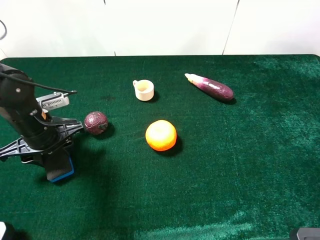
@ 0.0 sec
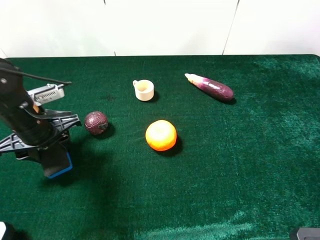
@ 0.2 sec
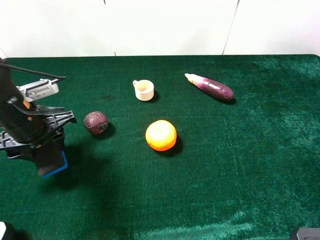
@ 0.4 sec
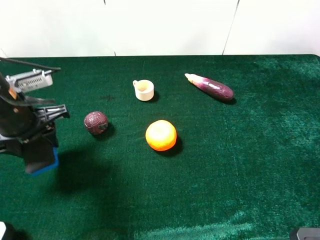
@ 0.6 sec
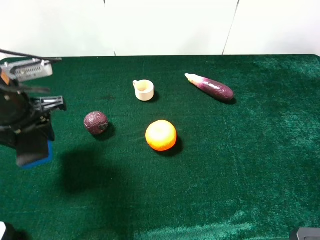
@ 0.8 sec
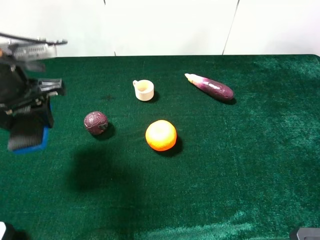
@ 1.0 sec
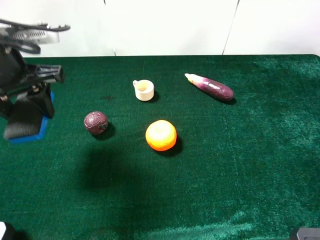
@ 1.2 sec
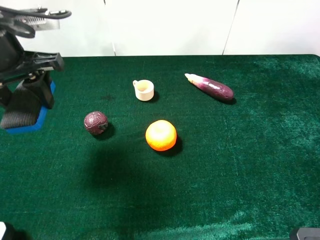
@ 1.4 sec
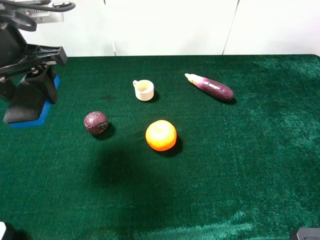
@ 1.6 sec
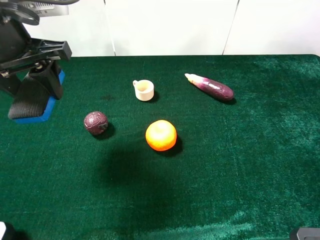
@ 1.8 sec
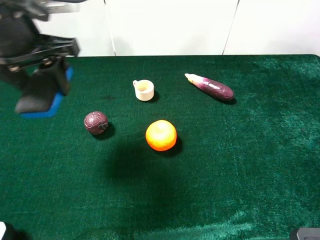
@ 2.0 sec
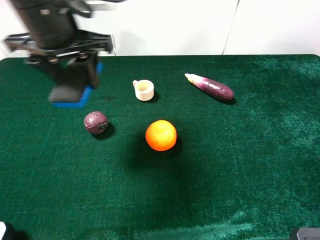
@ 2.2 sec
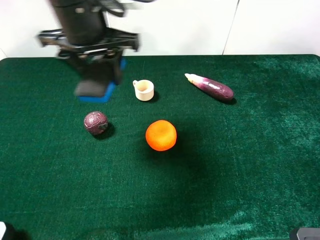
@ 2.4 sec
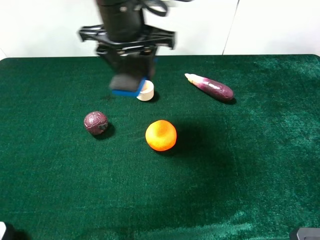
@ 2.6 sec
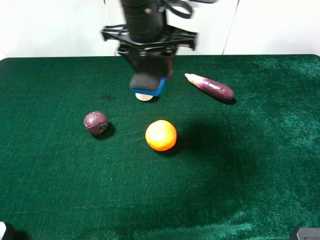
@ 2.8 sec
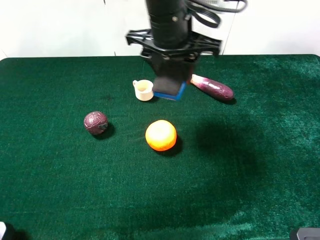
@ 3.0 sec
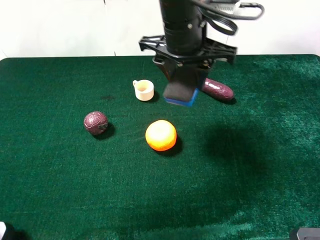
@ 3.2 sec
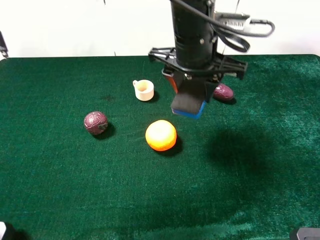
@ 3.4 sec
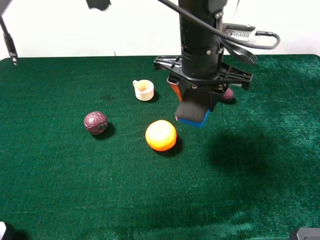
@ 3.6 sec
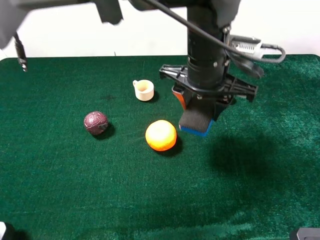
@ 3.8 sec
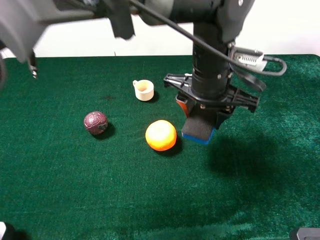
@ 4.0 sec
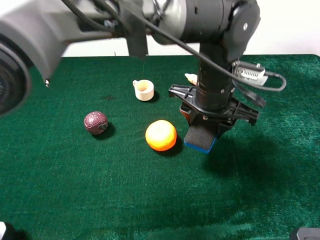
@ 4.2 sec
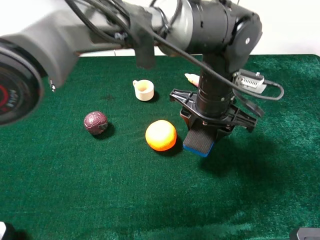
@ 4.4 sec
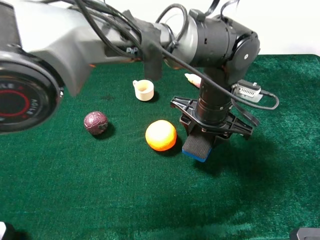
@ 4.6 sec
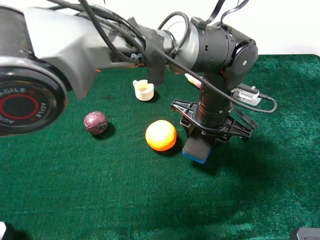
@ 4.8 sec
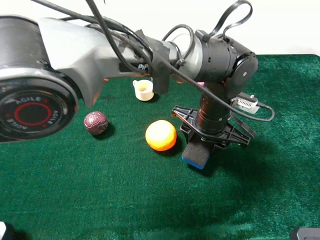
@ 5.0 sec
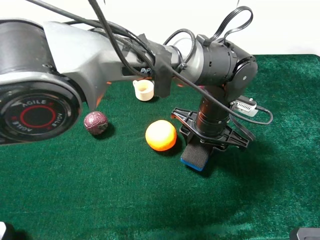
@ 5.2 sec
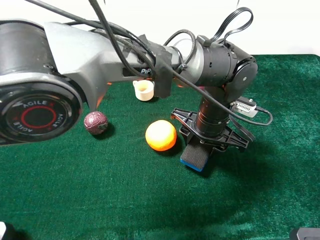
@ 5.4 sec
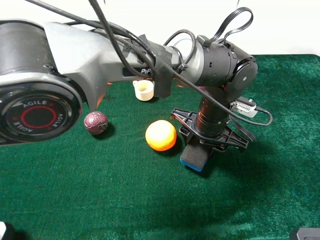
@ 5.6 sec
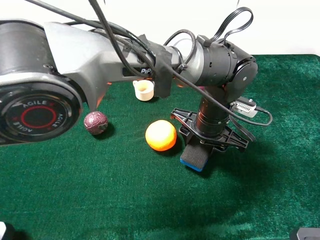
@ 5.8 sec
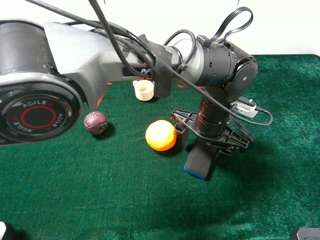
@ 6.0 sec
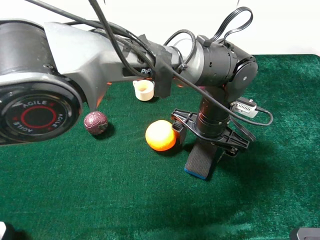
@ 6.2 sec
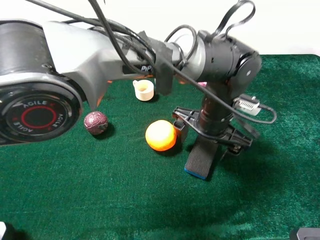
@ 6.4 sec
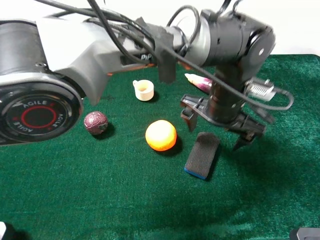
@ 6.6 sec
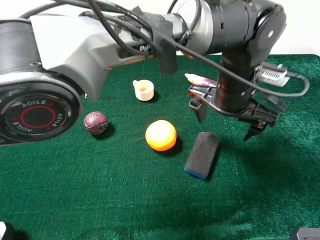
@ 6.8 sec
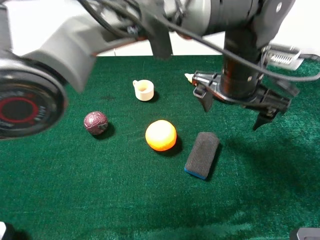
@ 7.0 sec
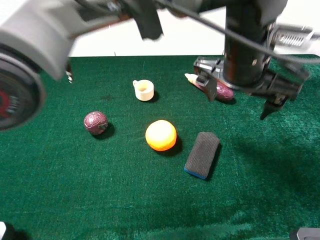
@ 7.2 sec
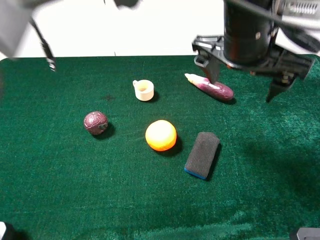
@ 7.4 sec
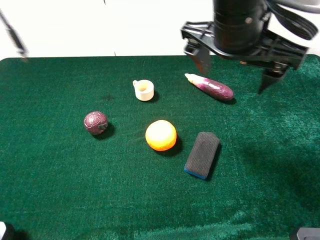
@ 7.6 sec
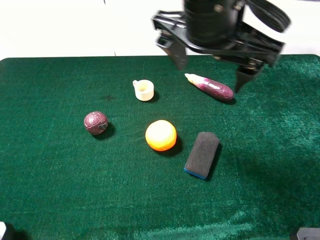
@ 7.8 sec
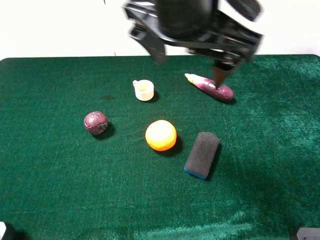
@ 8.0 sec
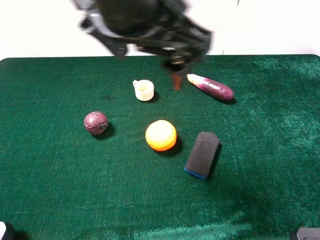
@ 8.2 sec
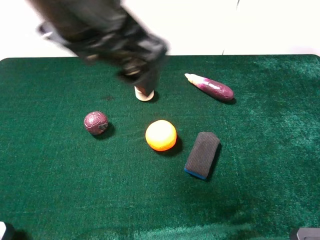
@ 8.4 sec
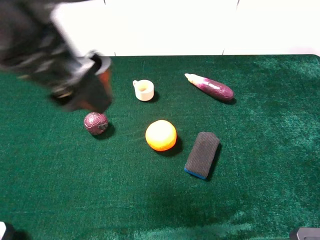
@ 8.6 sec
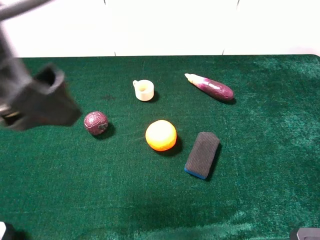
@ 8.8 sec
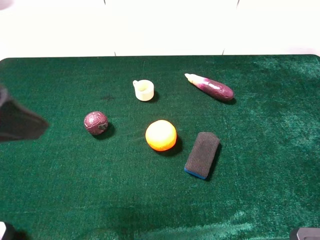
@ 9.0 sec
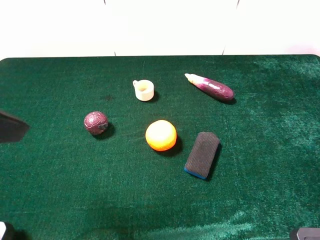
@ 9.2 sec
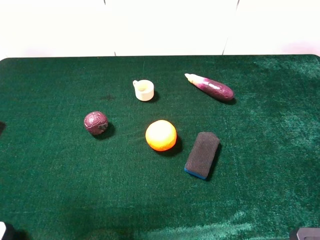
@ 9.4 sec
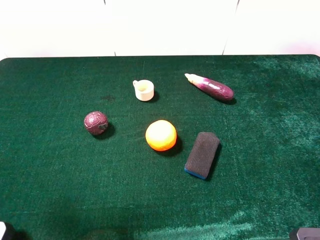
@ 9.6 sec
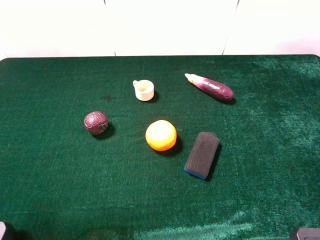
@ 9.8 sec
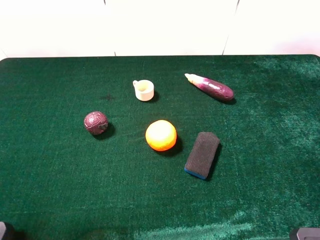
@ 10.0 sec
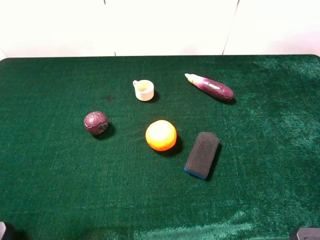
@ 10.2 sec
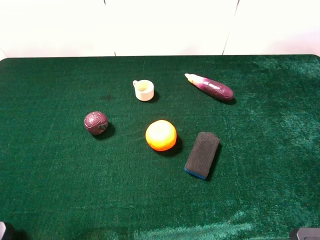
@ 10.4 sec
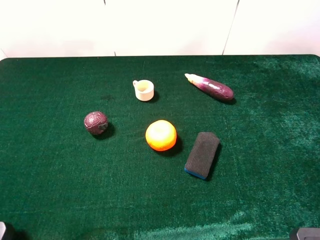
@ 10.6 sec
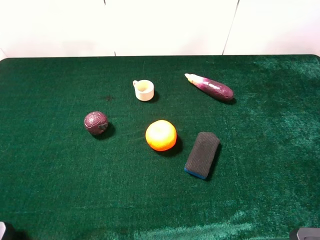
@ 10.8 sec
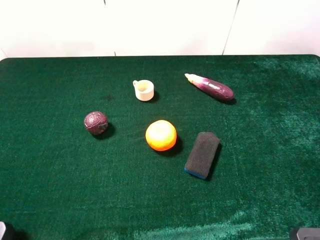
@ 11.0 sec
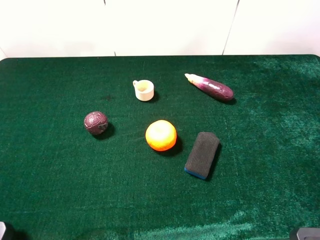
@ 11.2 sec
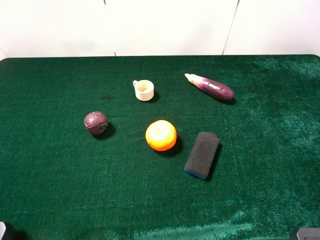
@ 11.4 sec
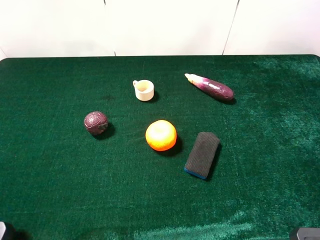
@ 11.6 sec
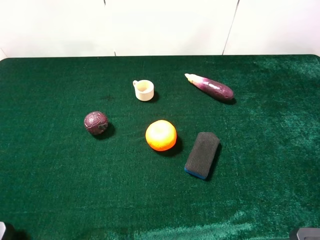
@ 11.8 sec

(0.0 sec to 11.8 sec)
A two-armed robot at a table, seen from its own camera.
Task of the whole recording: the gripper move the object.
0.0 sec - 1.4 sec: The left gripper shifts about 15 cm upward.
1.4 sec - 3.0 sec: The left gripper shifts approximately 25 cm to the right.
3.0 sec - 4.4 sec: The left gripper travels downward, to the right and backward by about 15 cm.
4.4 sec - 6.0 sec: The left gripper moves downward, some 5 cm, and opens its fingers.
6.0 sec - 7.4 sec: The left gripper heads upward, covering some 20 cm.
7.4 sec - 8.8 sec: The left gripper heads to the left and backward, covering roughly 30 cm.
8.8 sec - 10.4 sec: The left gripper heads to the left, backward and downward, covering roughly 20 cm.

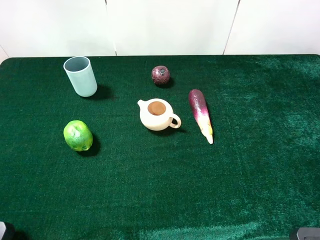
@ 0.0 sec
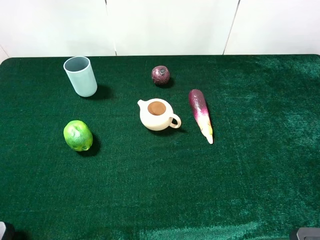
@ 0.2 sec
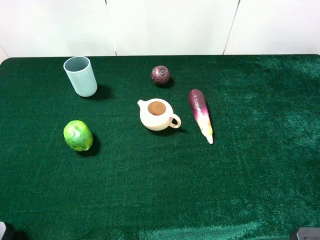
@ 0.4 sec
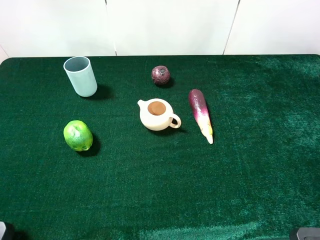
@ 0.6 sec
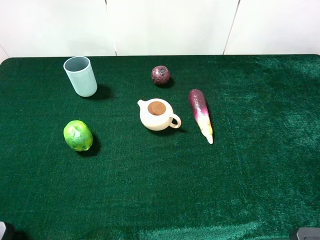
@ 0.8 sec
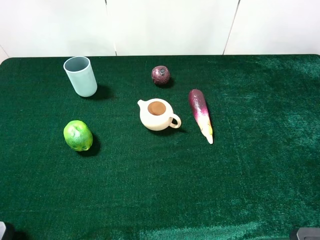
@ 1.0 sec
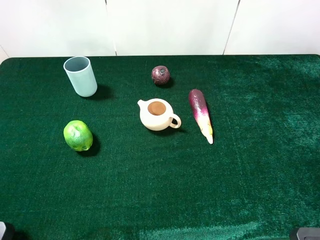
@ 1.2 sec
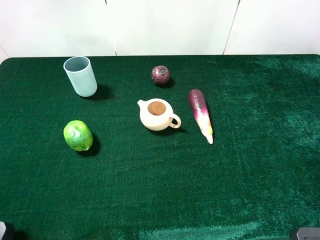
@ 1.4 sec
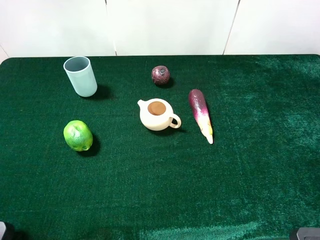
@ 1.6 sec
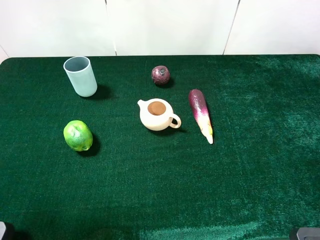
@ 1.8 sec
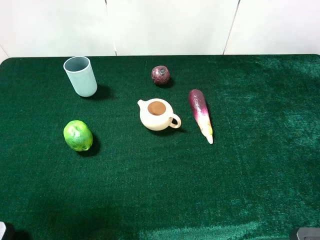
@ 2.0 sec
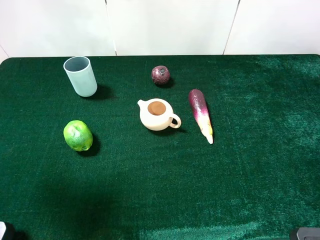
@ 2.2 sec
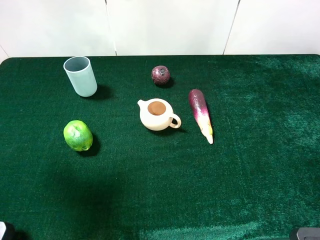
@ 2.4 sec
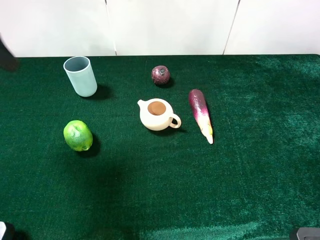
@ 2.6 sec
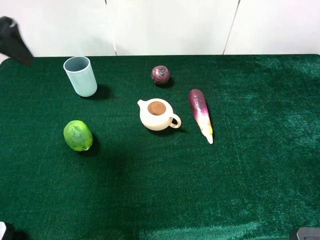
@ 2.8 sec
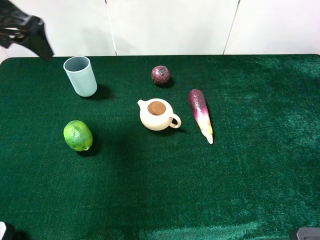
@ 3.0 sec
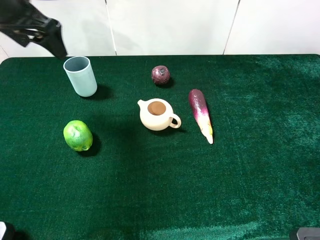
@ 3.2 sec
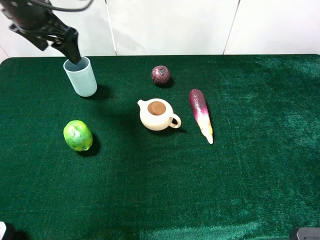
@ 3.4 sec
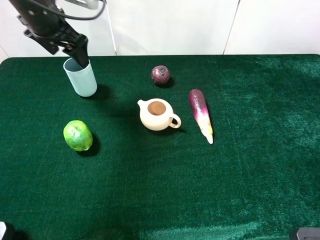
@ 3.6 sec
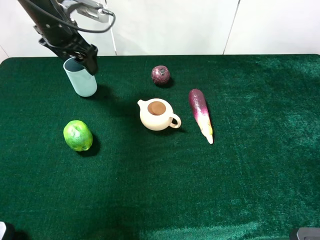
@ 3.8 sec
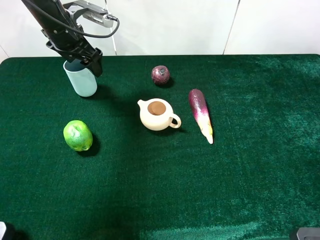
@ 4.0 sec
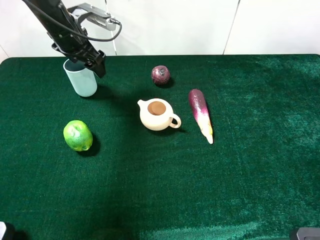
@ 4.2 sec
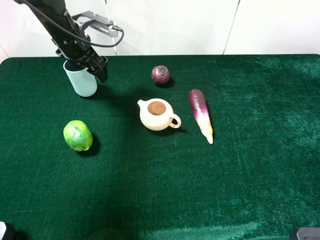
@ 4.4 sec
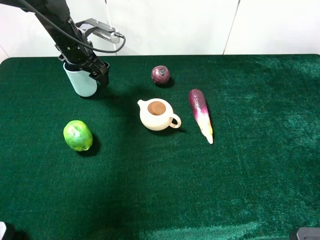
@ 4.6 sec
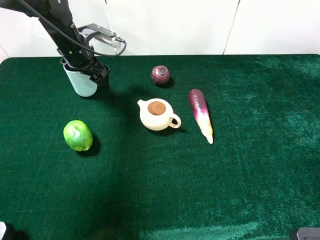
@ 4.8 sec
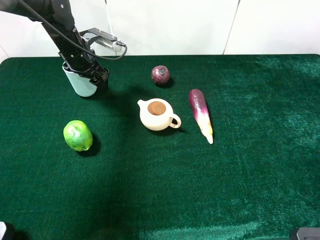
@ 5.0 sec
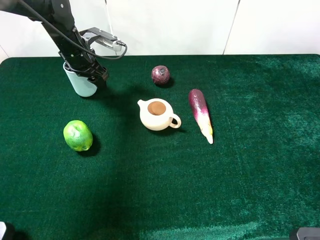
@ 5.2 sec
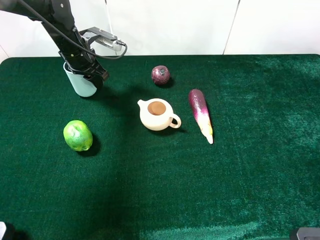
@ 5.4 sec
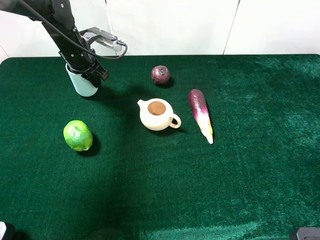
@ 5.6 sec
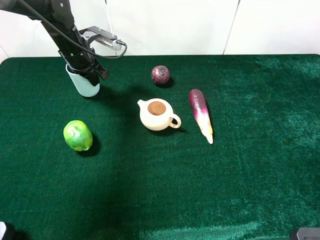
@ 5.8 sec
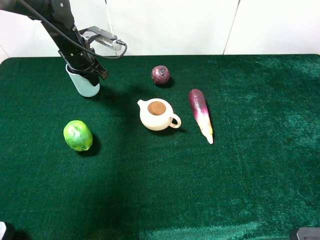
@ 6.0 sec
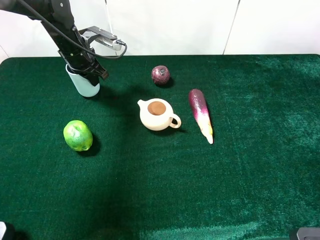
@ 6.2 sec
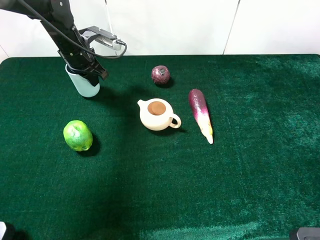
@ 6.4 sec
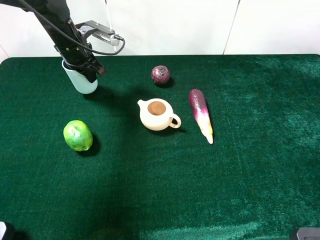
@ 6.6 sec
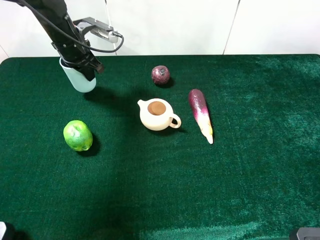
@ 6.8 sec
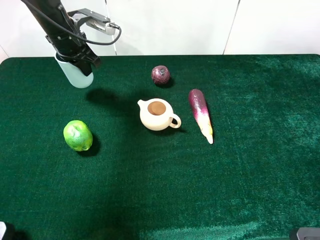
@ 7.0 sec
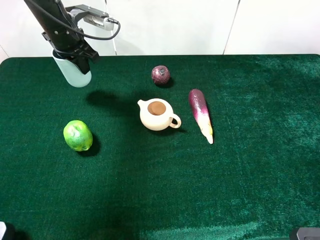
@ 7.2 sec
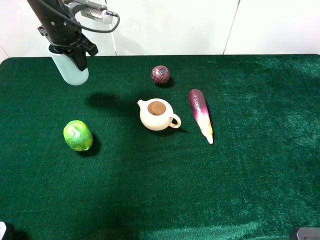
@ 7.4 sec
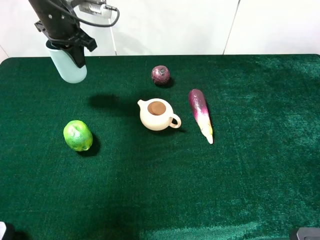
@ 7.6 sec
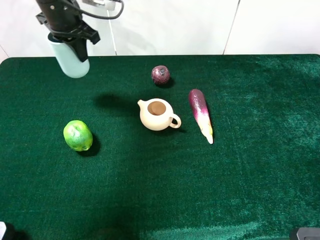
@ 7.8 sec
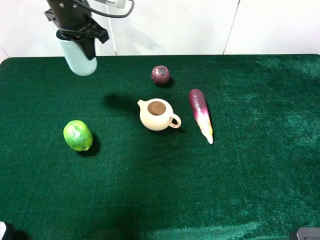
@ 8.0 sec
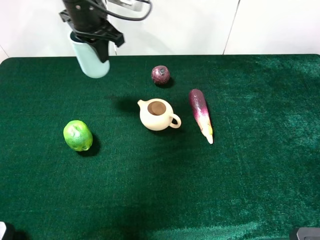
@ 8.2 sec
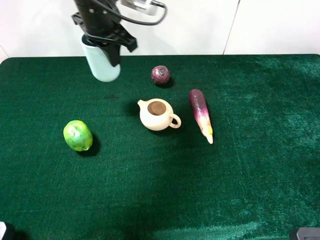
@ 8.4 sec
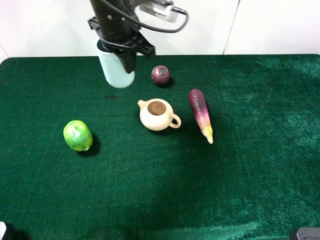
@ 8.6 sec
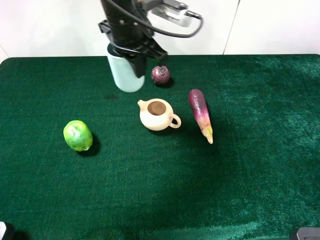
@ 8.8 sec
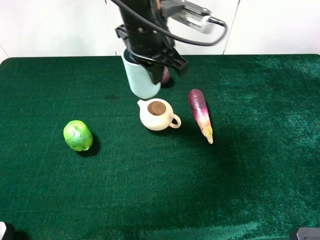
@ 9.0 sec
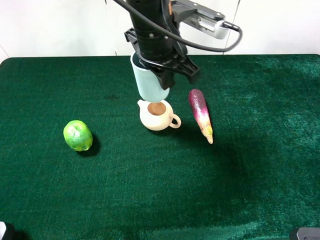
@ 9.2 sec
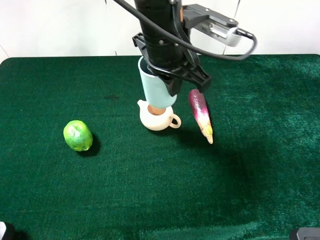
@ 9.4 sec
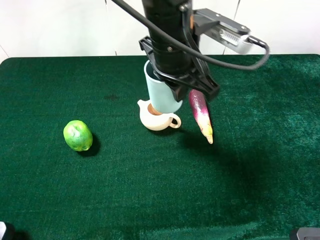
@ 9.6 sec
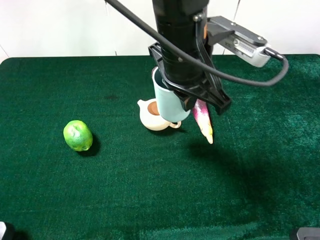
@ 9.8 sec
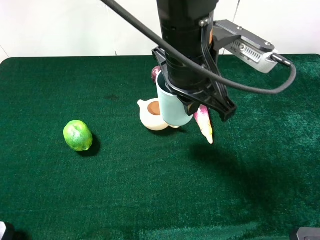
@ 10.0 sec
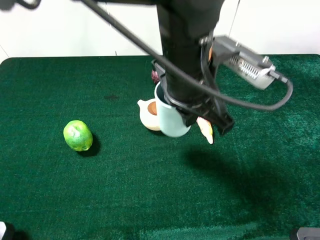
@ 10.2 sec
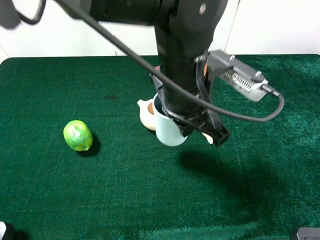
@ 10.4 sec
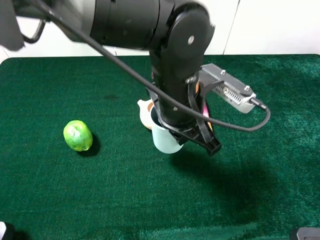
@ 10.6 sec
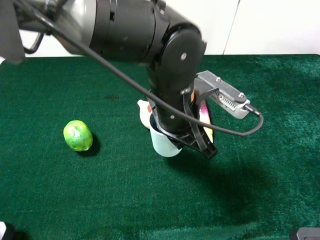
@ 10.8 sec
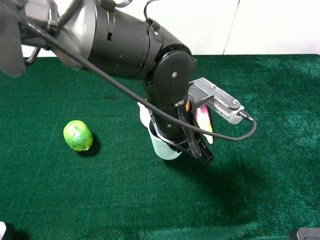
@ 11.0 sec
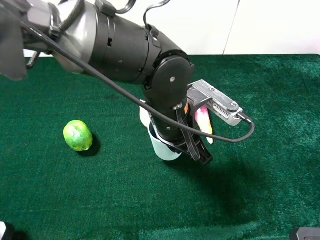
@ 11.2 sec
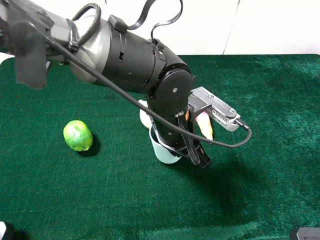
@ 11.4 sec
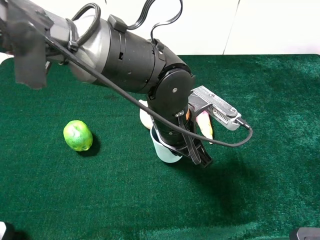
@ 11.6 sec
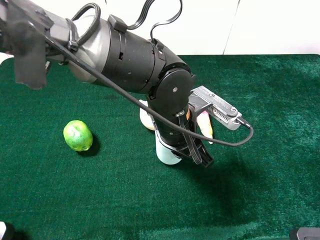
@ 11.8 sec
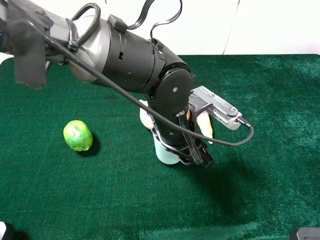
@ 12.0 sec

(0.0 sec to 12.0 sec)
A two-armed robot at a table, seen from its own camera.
Task of the whole recording: the gripper move the object.
Step, 0.0 sec - 6.4 sec: Grasp the cyan cup with the left gripper.
Step, 6.6 sec - 12.0 sec: Place the cyan cup on the table with the left gripper.
1.6 sec - 3.0 sec: The left gripper travels forward by some 25 cm.
3.0 sec - 4.4 sec: The left gripper is displaced downward and forward by approximately 15 cm.
4.4 sec - 6.0 sec: The left gripper closes up.
6.0 sec - 7.6 sec: The left gripper moves upward, about 10 cm.
7.6 sec - 9.0 sec: The left gripper moves to the right and backward, approximately 20 cm.
9.0 sec - 10.4 sec: The left gripper goes some 10 cm backward and to the right.
10.4 sec - 12.0 sec: The left gripper goes some 5 cm downward, and opens.
